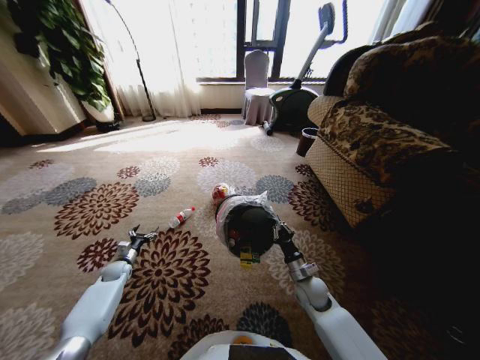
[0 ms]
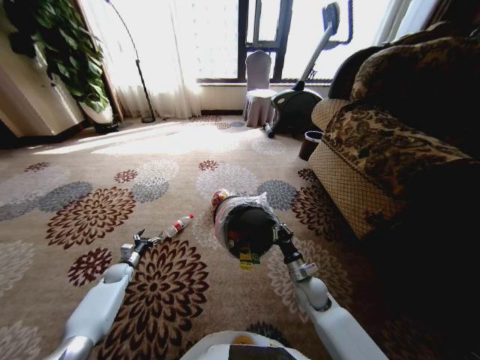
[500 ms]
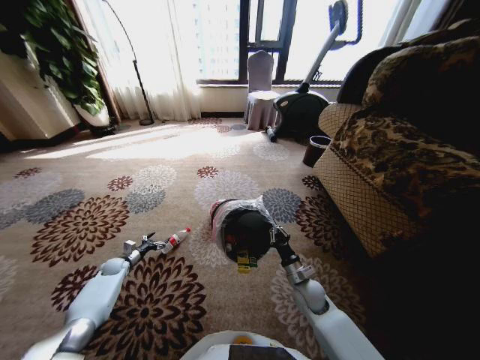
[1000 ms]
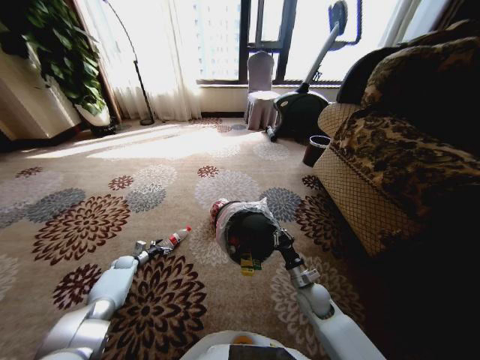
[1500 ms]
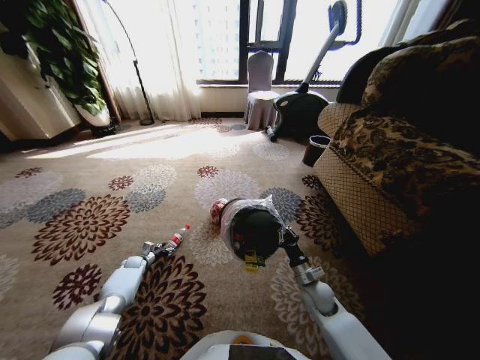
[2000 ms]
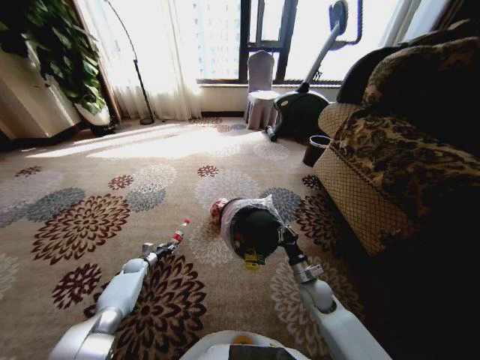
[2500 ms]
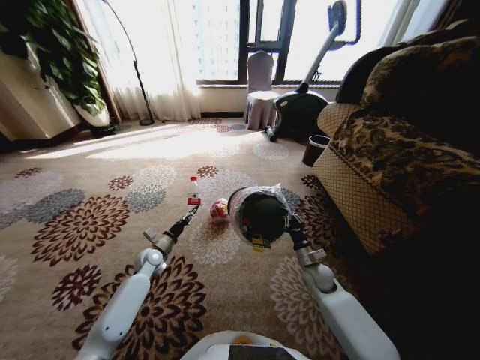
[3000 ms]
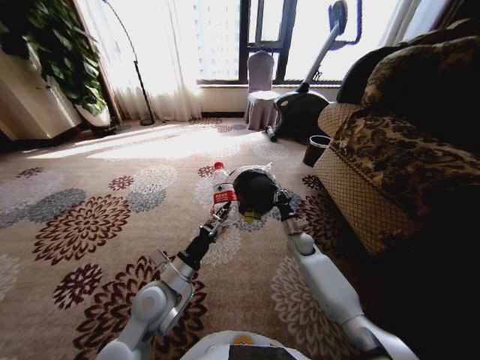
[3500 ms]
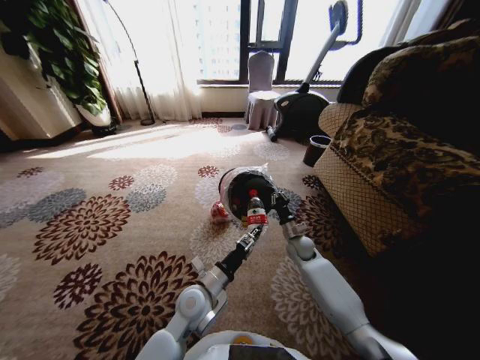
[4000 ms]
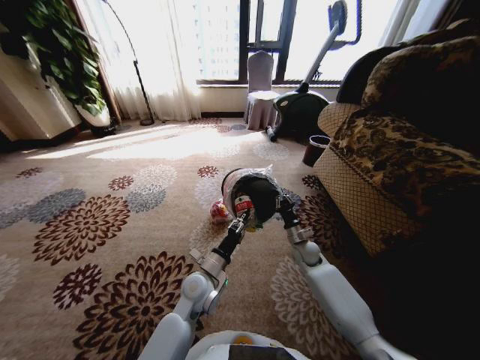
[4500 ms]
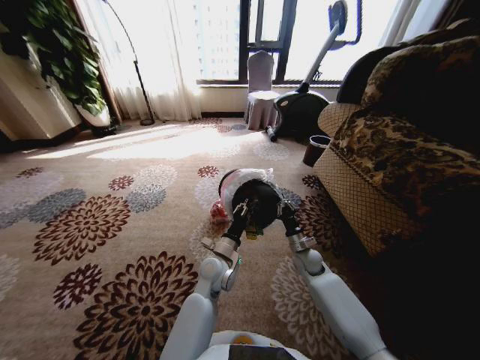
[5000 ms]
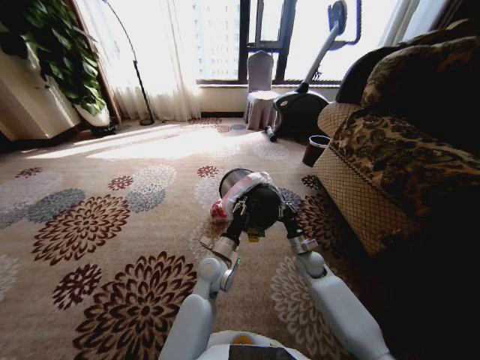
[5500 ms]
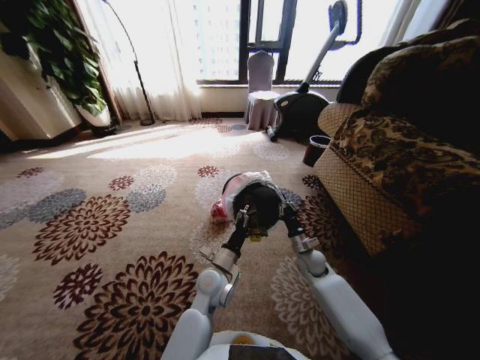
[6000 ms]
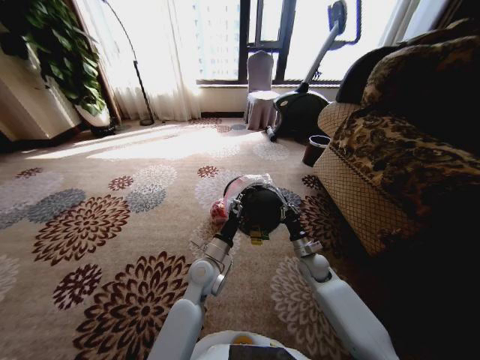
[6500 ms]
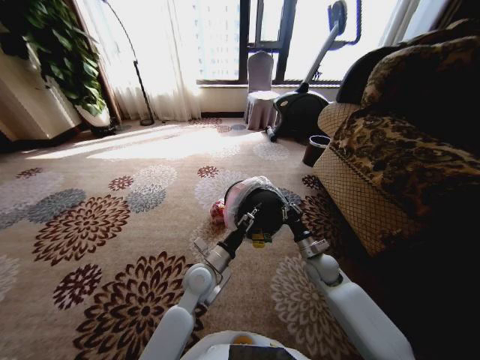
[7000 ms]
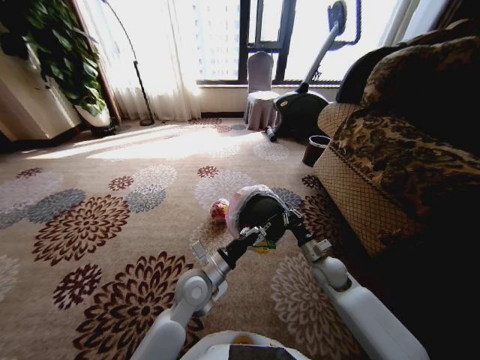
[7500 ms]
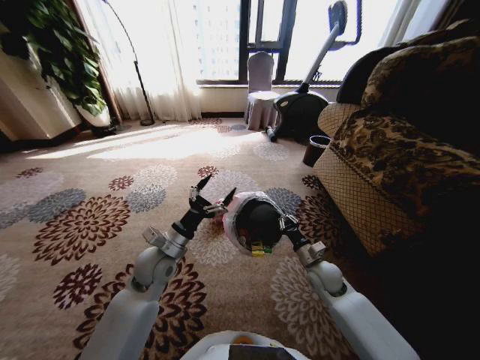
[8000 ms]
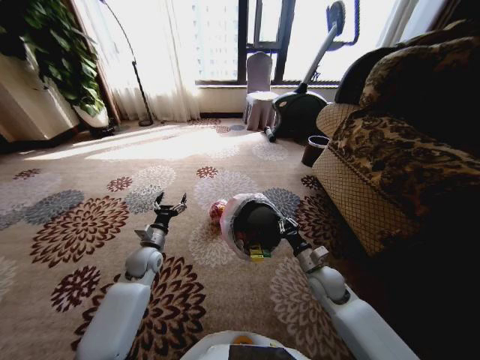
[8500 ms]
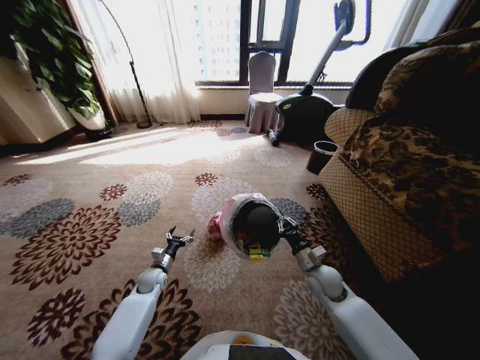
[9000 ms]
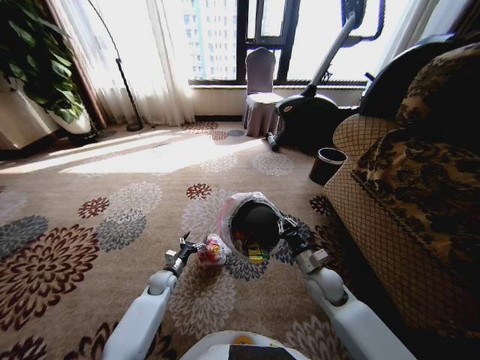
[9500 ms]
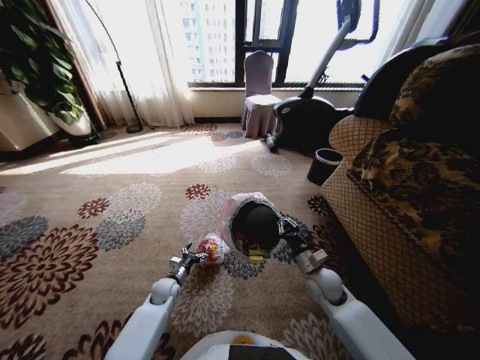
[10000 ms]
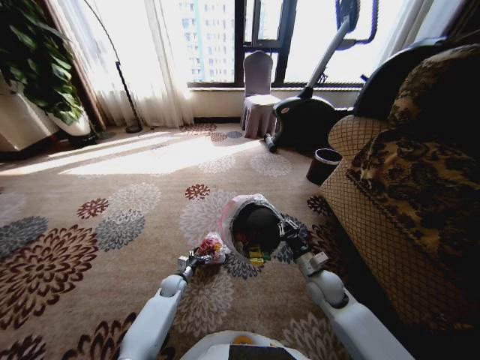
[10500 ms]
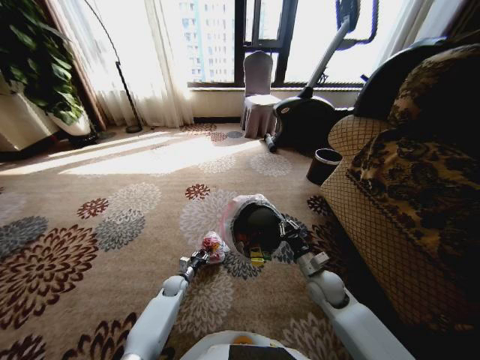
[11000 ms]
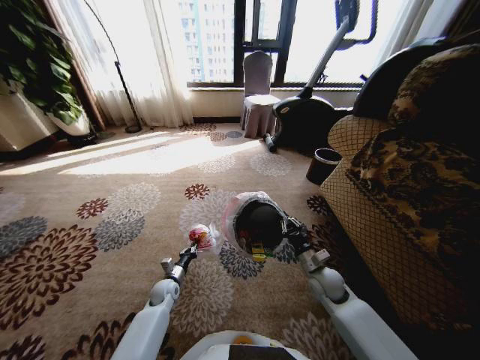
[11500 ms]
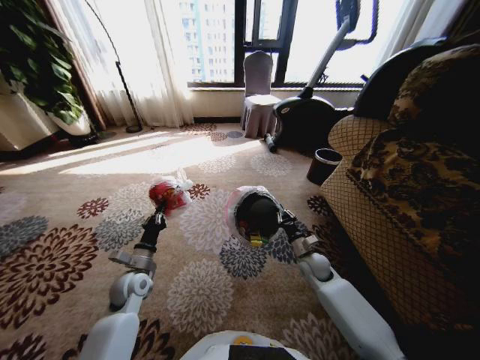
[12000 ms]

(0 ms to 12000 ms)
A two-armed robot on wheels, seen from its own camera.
Task of the whole recording: Pick up the trash from the ground and place it into the trash bin.
0 ms - 2000 ms: The left gripper shifts roughly 10 cm downward and forward.
2000 ms - 4000 ms: The right gripper moves forward, about 15 cm, while the left gripper goes roughly 50 cm to the right, upward and backward, and closes its fingers.
4000 ms - 6000 ms: The left gripper heads forward, covering roughly 5 cm, and opens its fingers. The right gripper heads backward, covering some 5 cm.
6000 ms - 8000 ms: The right gripper shifts approximately 5 cm backward, while the left gripper travels to the left and upward by roughly 15 cm.
8000 ms - 10000 ms: The left gripper is displaced downward by approximately 25 cm.
10000 ms - 12000 ms: The left gripper moves upward, approximately 15 cm, and closes its fingers; the right gripper shifts some 5 cm forward.

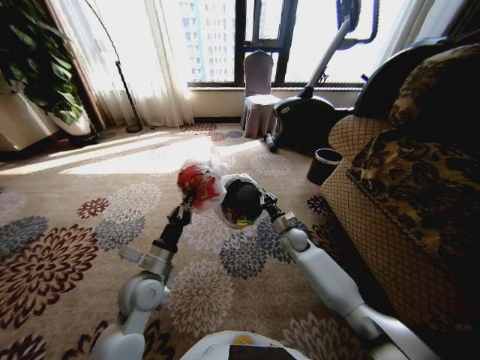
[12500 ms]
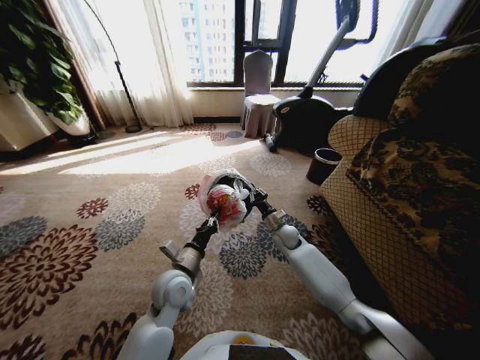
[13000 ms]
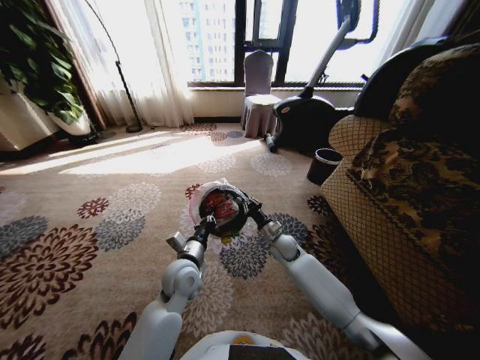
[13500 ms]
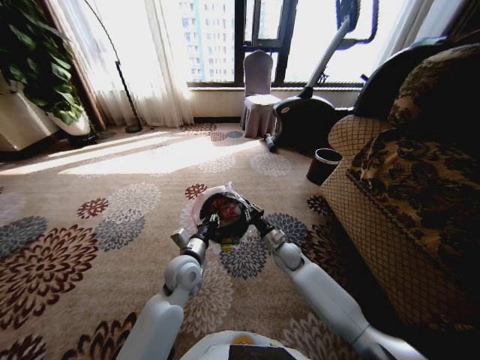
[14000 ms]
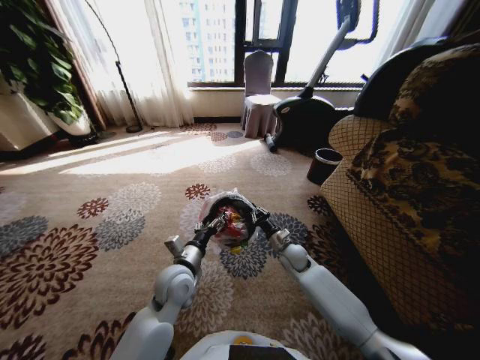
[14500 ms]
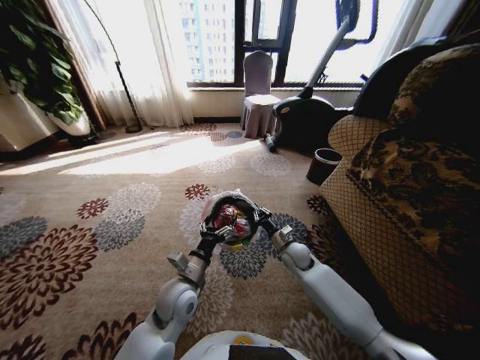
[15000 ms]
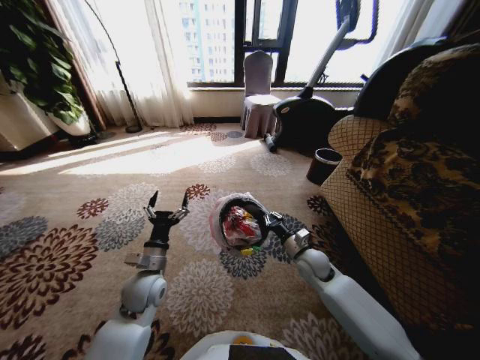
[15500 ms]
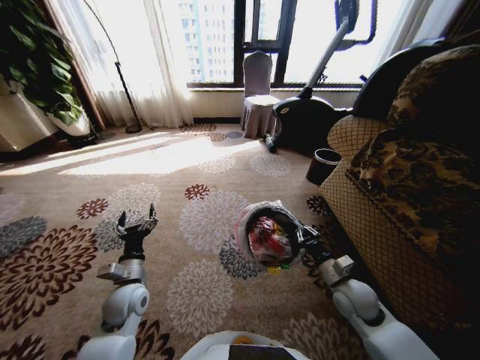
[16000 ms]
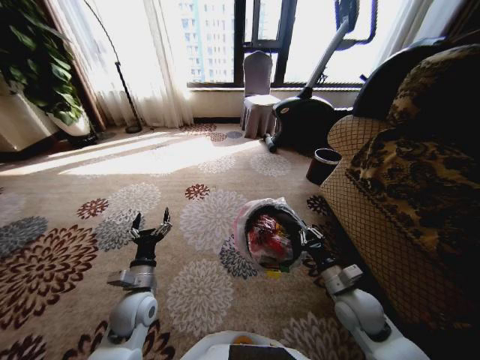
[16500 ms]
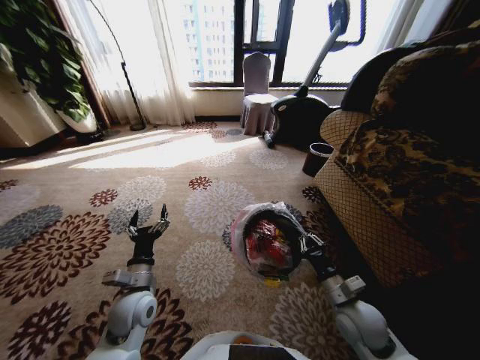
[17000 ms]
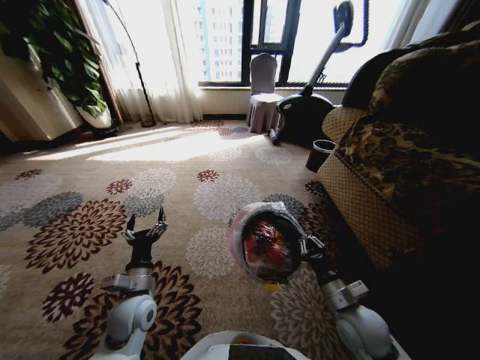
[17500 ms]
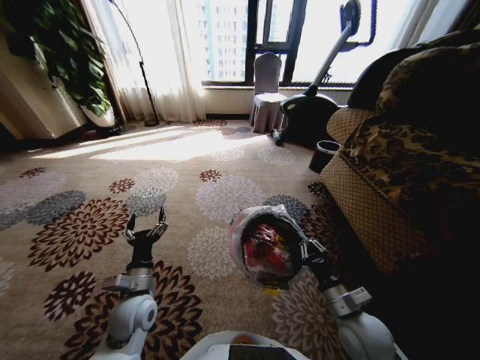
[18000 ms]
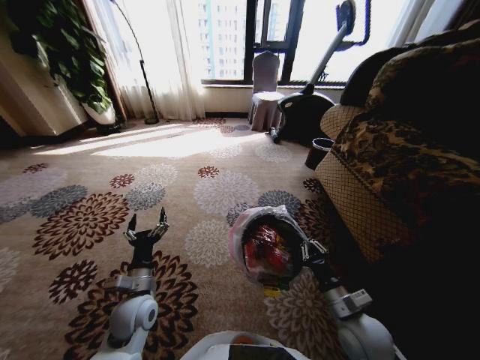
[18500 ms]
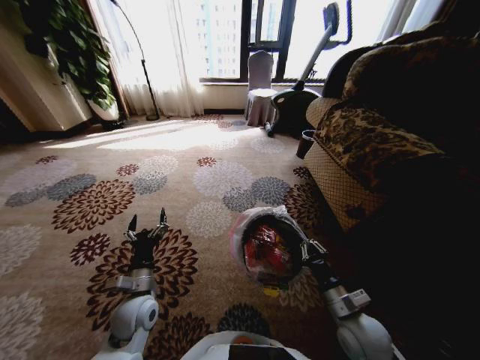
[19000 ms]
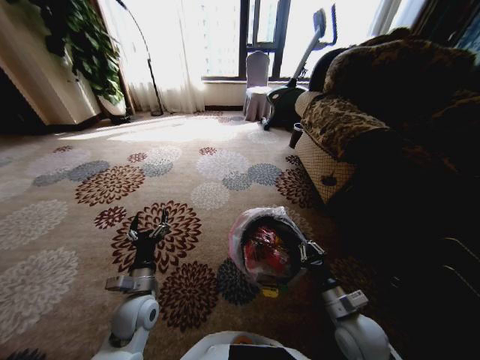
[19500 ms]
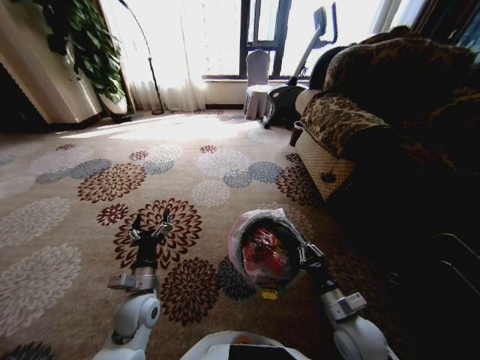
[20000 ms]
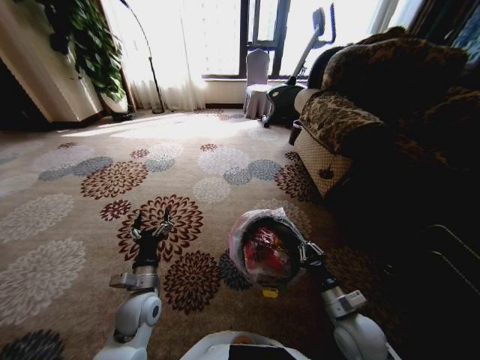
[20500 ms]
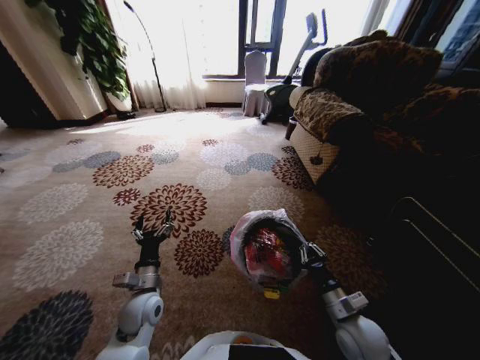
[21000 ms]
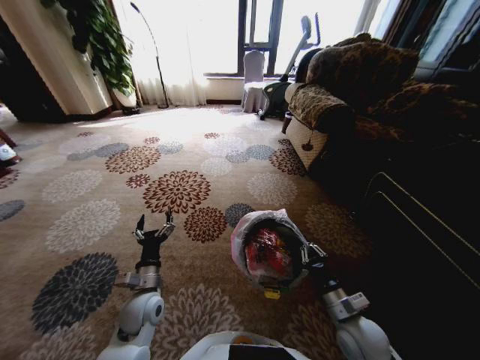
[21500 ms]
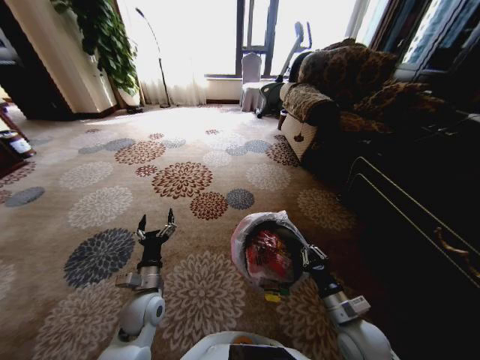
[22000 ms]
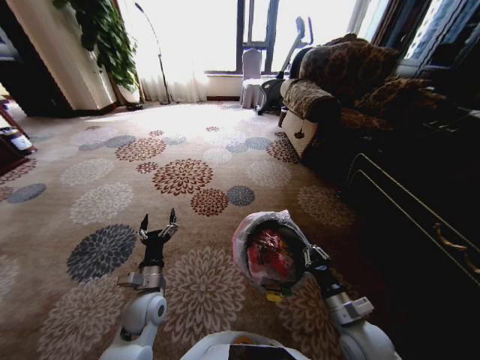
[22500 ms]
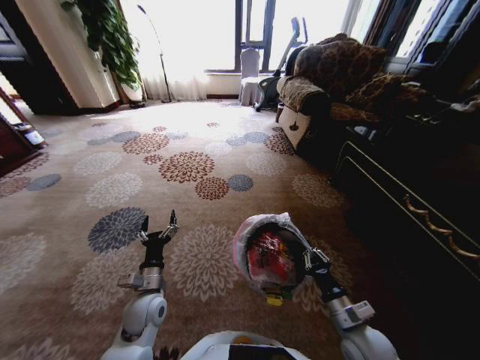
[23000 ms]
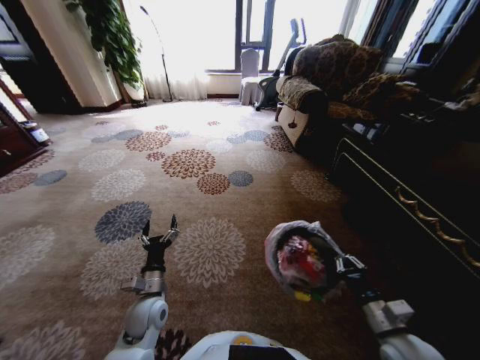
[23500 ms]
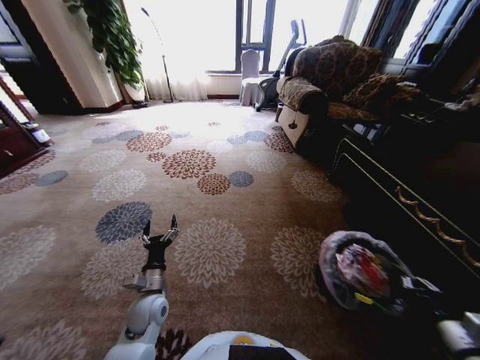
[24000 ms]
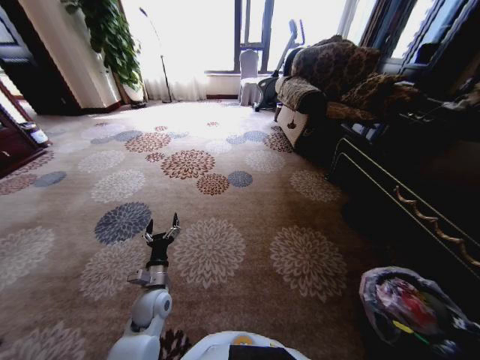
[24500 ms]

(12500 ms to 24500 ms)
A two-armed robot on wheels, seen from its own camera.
Task of the whole recording: Pick up the trash from the ground and place it into the trash bin.
12500 ms - 14500 ms: The left gripper shifts roughly 5 cm to the right, and opens. Meanwhile the right gripper travels backward by approximately 5 cm.
14500 ms - 16500 ms: The left gripper shifts some 10 cm to the left and backward. Meanwhile the right gripper travels backward, to the right and upward by some 20 cm.
16500 ms - 18500 ms: The right gripper travels backward by roughly 5 cm.
22500 ms - 24500 ms: The right gripper travels to the right by roughly 30 cm.

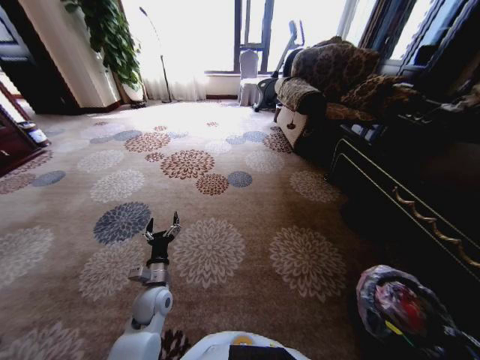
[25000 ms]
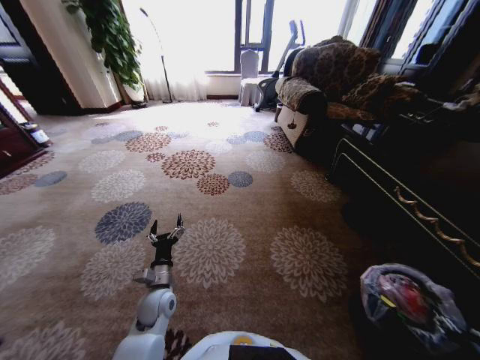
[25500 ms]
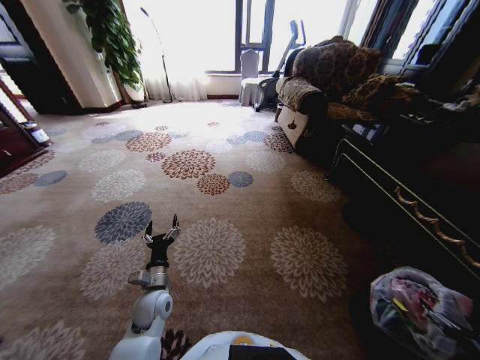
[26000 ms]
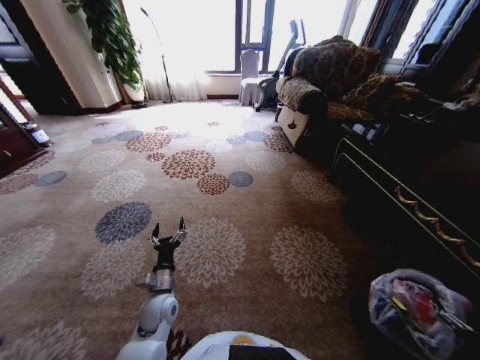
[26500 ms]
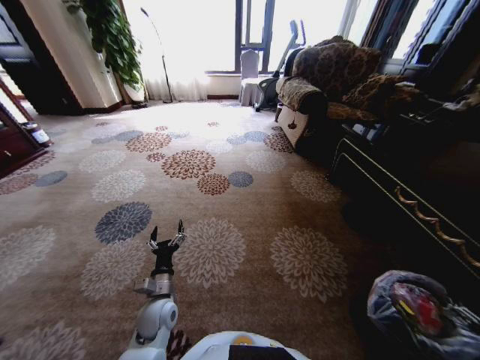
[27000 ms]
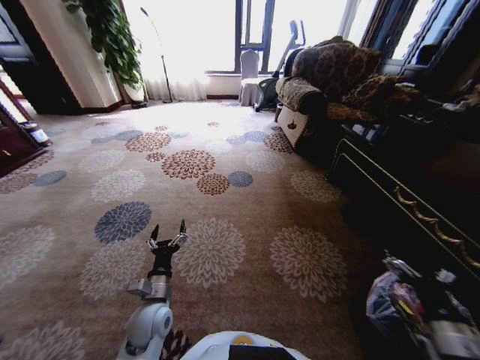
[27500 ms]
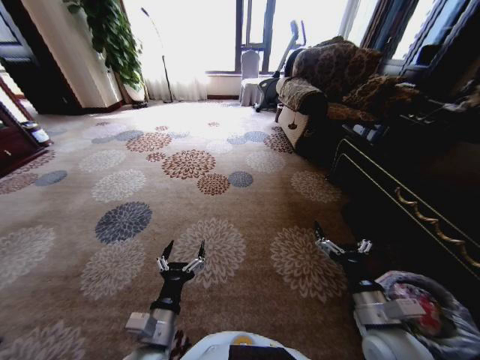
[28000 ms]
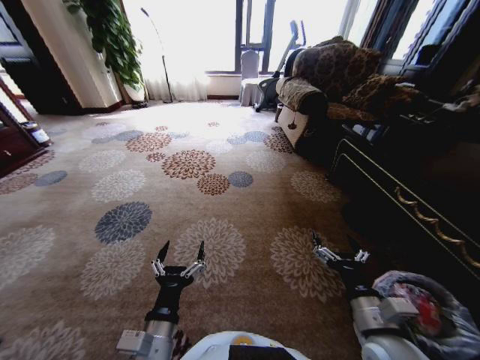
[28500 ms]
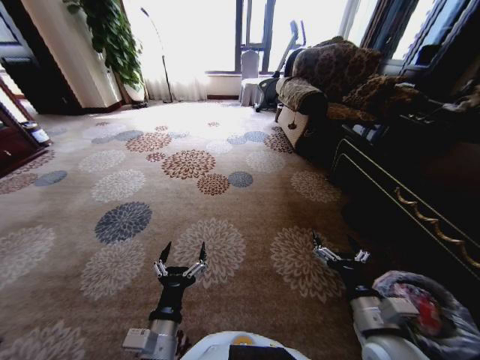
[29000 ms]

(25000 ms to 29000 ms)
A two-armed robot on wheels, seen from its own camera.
Task of the whole recording: Pick up the trash from the ground and place it into the trash bin.
25000 ms - 27000 ms: The right gripper is displaced upward by some 5 cm, and opens up.
27000 ms - 29000 ms: The right gripper is displaced to the left by roughly 30 cm, while the left gripper shifts some 20 cm backward, upward and to the right.
